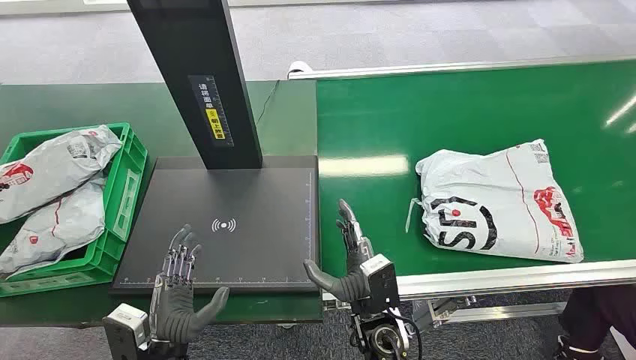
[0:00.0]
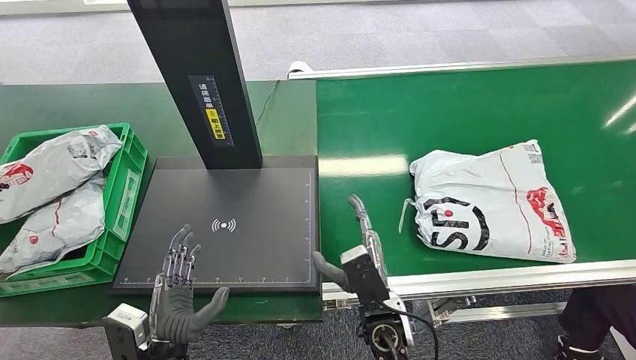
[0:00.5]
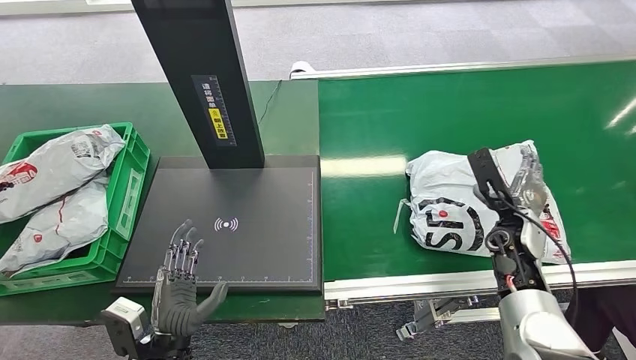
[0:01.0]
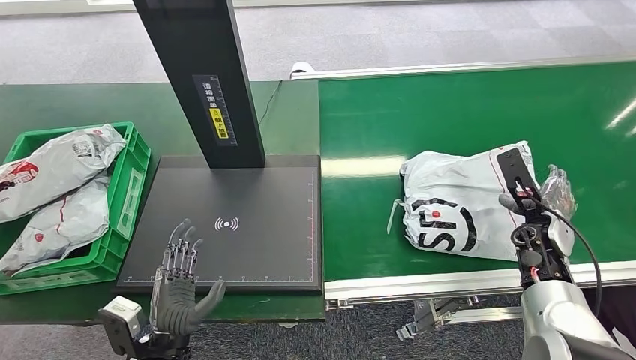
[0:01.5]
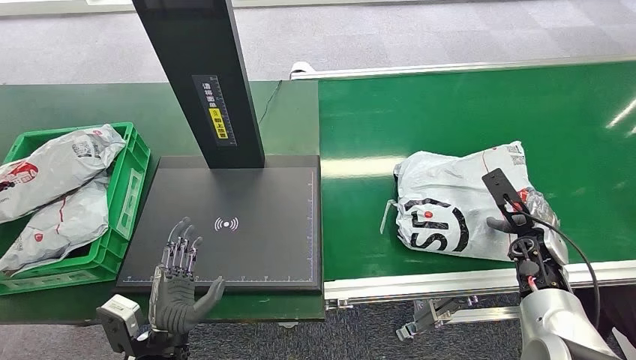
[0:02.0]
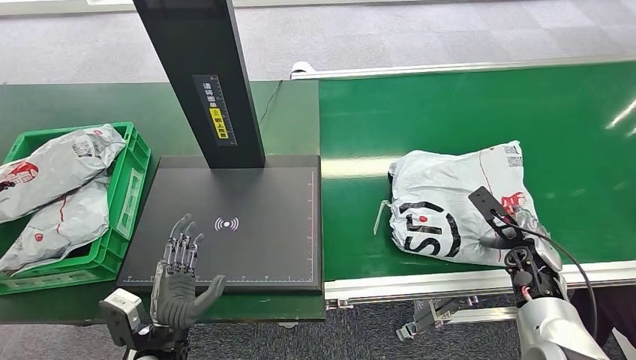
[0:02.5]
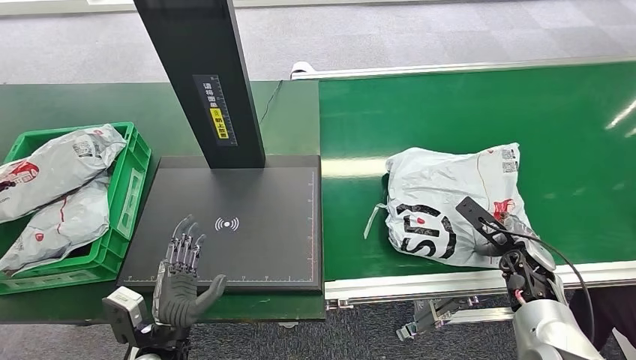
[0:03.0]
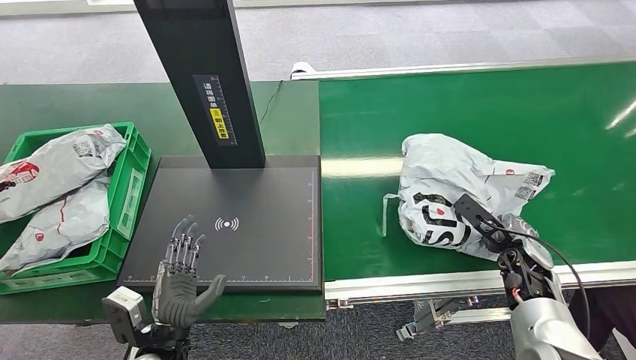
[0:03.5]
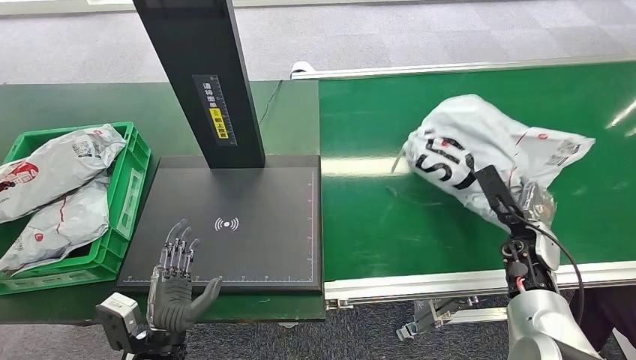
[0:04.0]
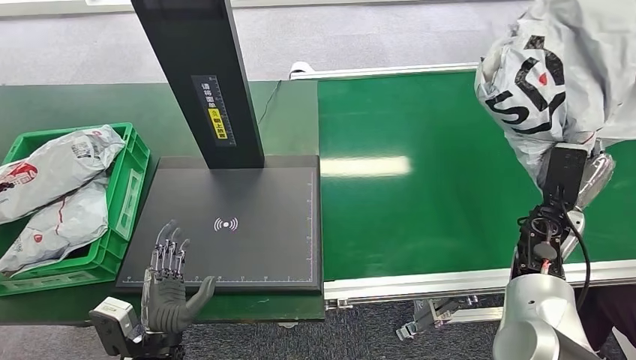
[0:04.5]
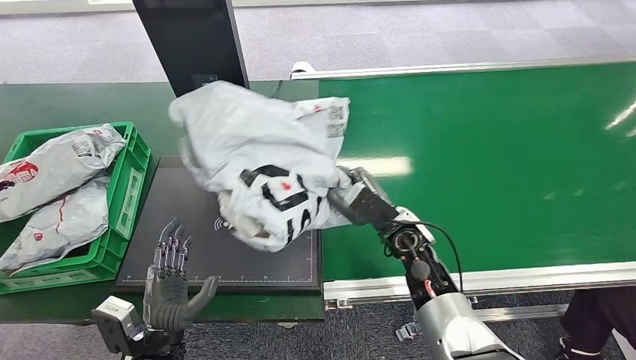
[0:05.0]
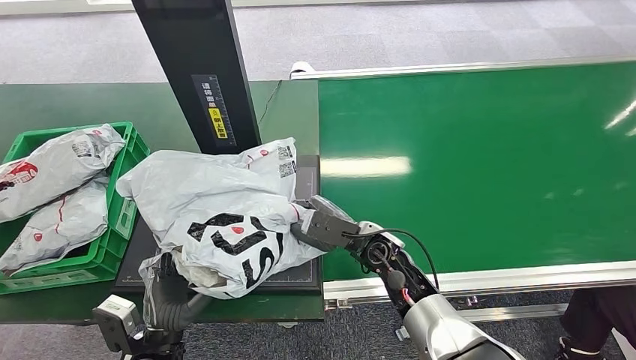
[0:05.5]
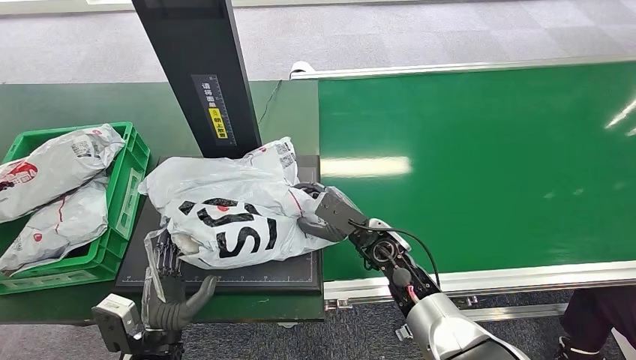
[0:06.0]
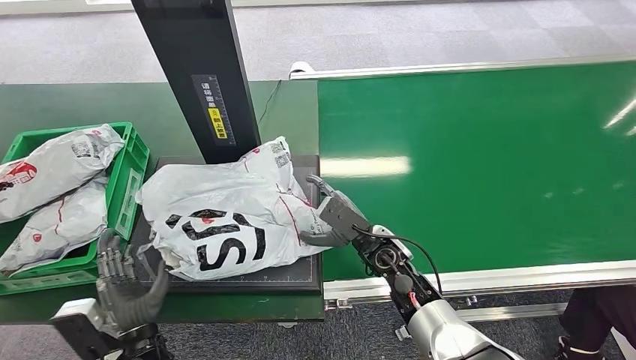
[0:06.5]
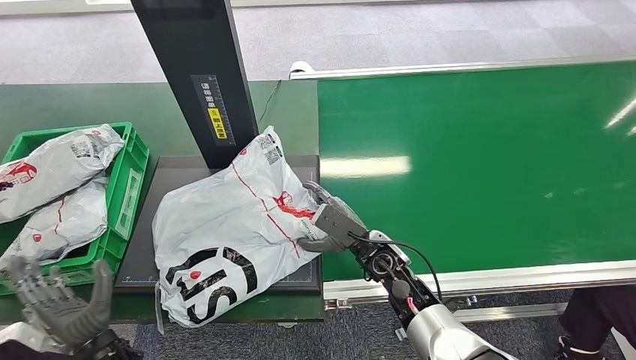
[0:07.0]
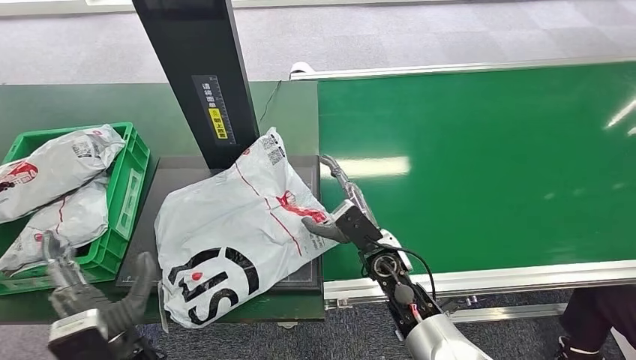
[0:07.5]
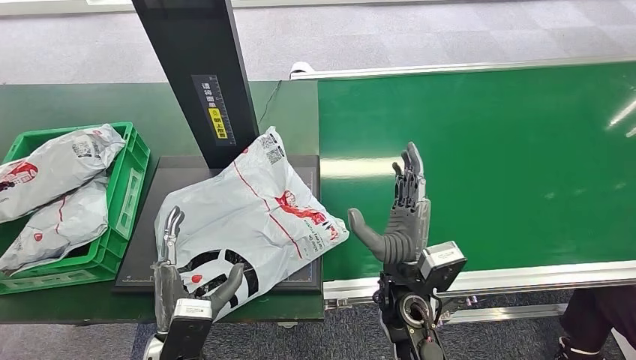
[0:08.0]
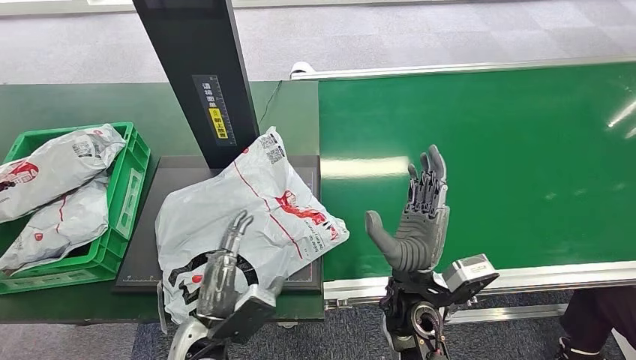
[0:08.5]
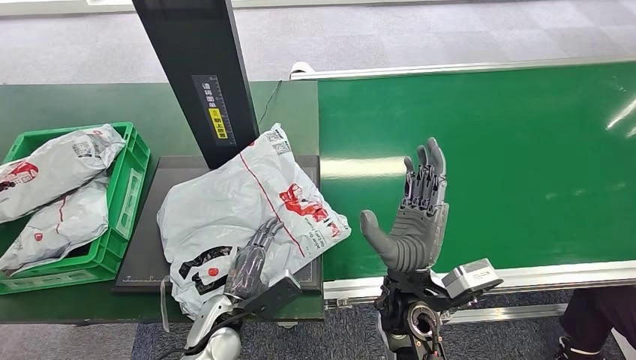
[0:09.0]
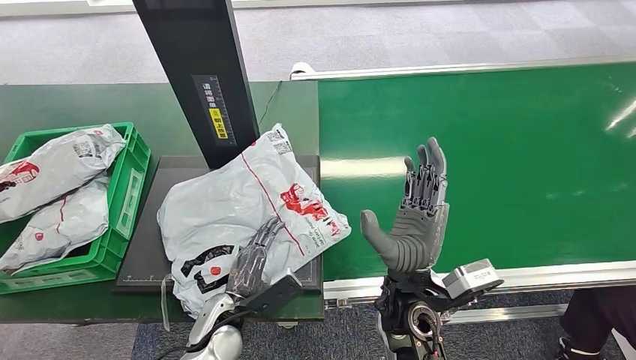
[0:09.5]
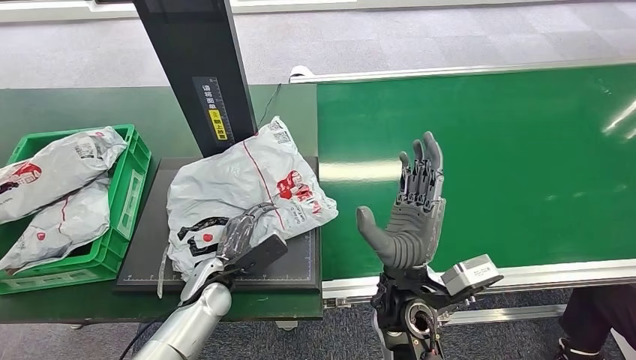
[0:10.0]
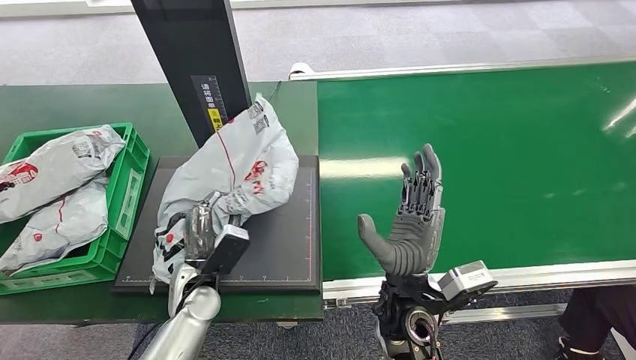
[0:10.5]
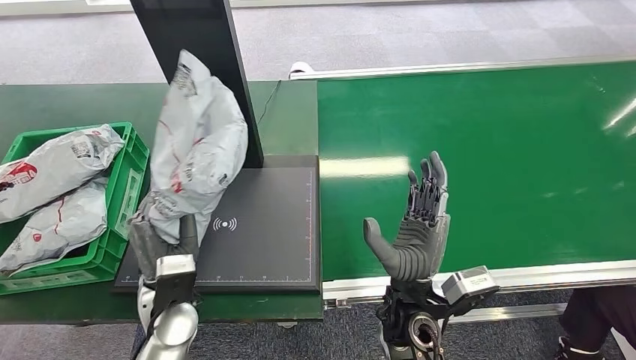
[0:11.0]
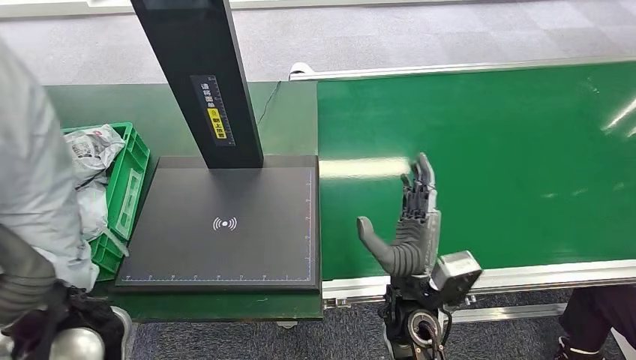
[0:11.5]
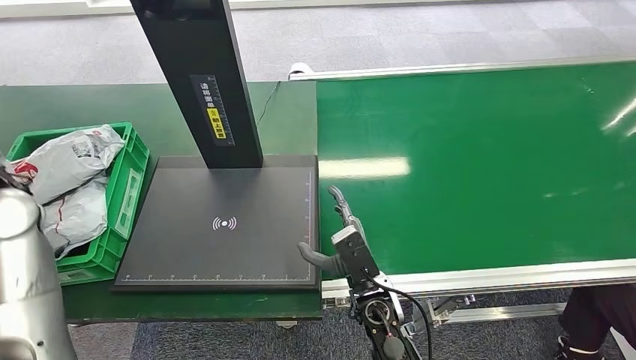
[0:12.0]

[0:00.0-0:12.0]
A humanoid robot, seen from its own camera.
Step, 0:00.0 to 0:04.5: Pick up the package from the conveyor belt.
Step, 0:05.0 to 0:07.0: Place the package onto the inbound machine.
Step, 0:07.5 to 0:11.0: Pick up the package from the inbound machine.
0:06.0 to 0:08.0: The left hand goes some 5 cm to the right. The right hand goes approximately 10 cm backward.

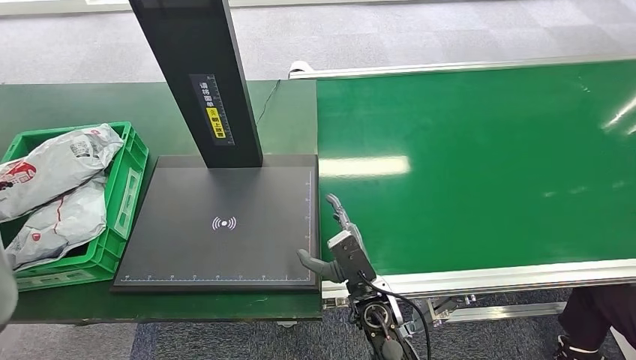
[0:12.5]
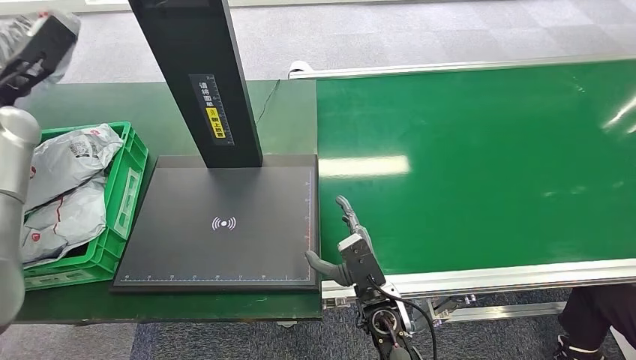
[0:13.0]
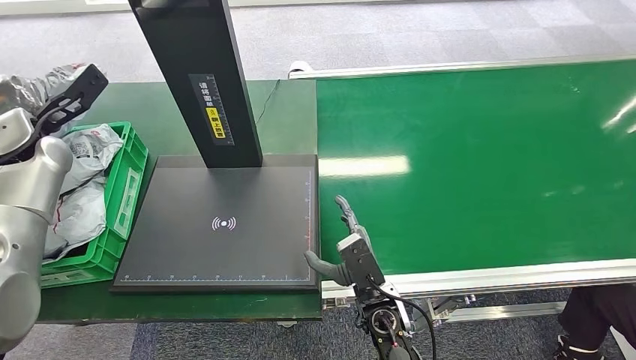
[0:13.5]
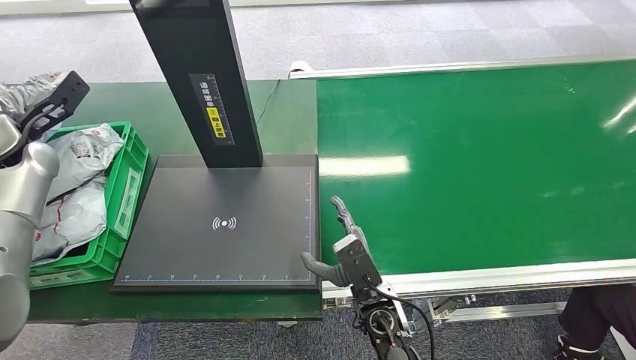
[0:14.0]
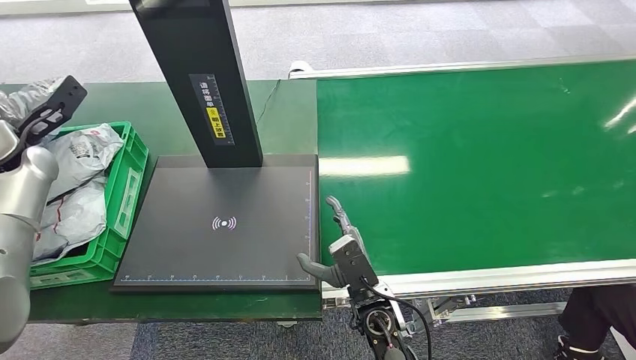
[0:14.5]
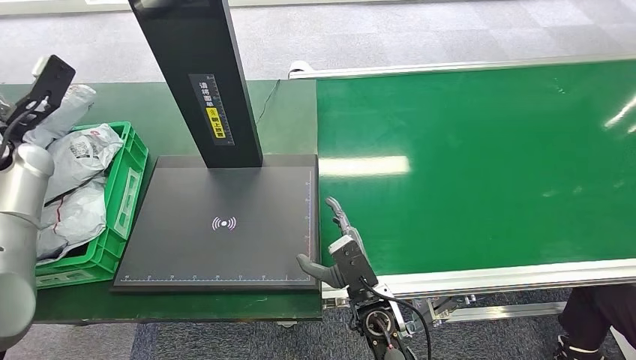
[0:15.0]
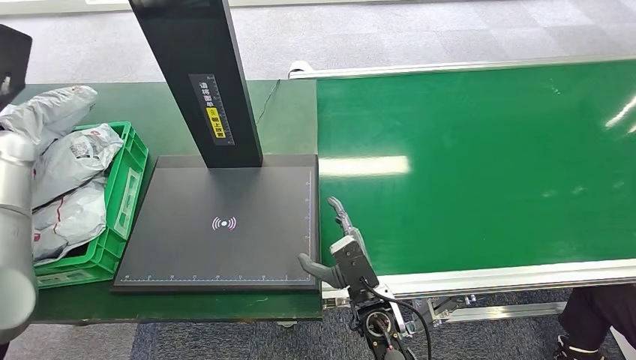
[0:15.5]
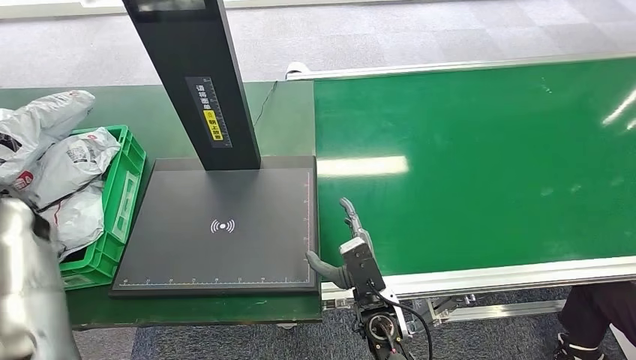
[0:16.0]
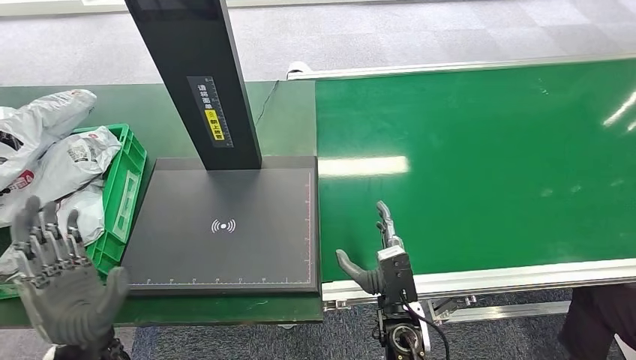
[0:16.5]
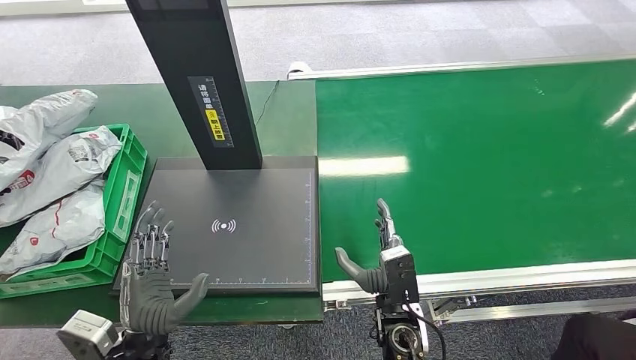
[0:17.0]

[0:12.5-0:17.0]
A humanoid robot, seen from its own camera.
Step, 0:12.5 to 0:17.0: Place the package into the parcel locker.
0:12.5 to 0:14.5: The left hand shifts about 15 cm downward.
0:14.5 to 0:17.0: The left hand moves backward, to the right and downward, about 40 cm.
